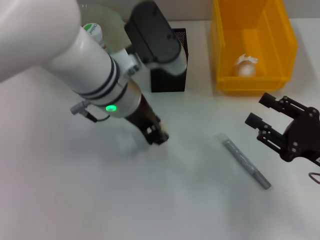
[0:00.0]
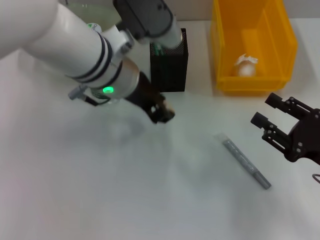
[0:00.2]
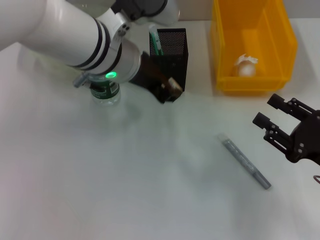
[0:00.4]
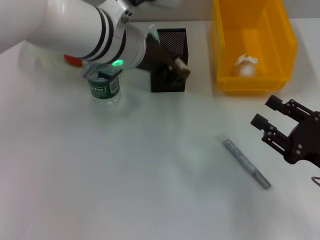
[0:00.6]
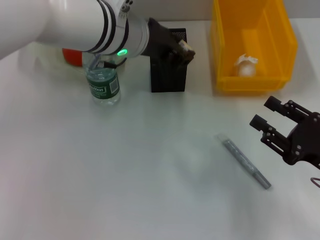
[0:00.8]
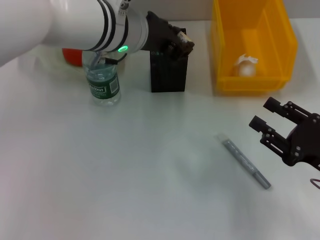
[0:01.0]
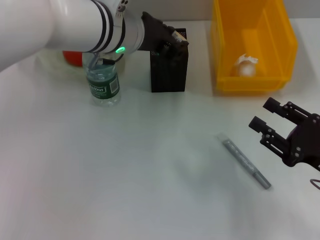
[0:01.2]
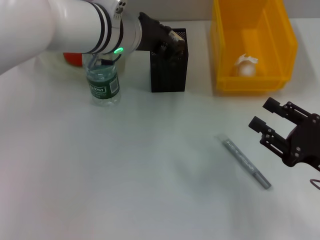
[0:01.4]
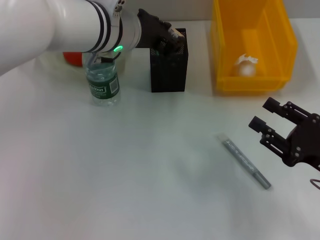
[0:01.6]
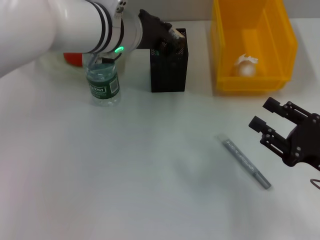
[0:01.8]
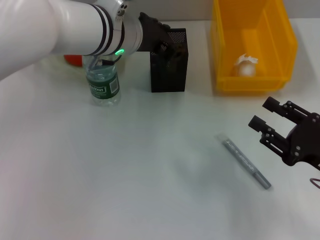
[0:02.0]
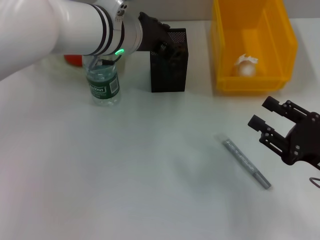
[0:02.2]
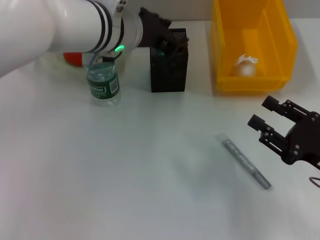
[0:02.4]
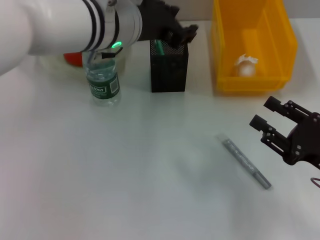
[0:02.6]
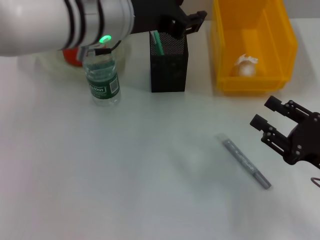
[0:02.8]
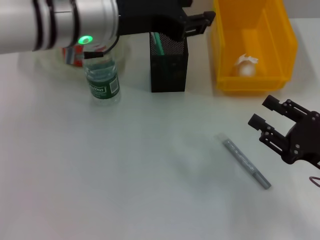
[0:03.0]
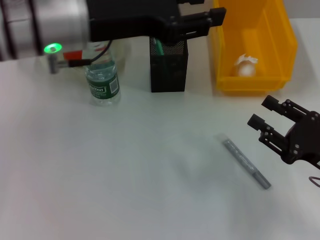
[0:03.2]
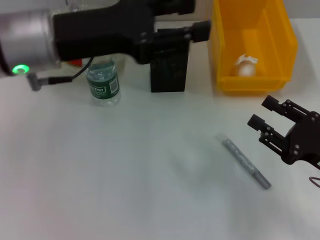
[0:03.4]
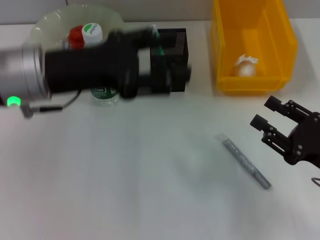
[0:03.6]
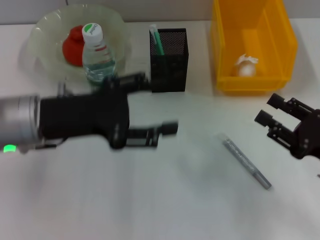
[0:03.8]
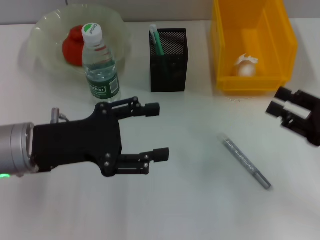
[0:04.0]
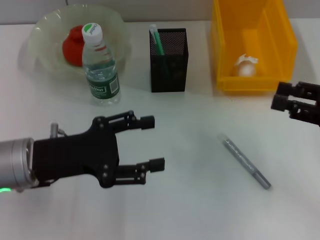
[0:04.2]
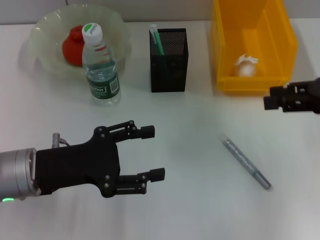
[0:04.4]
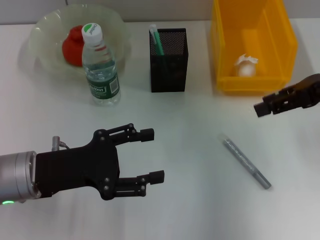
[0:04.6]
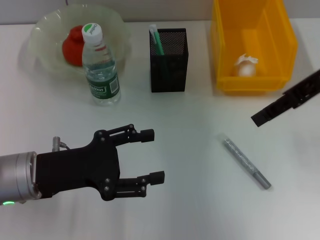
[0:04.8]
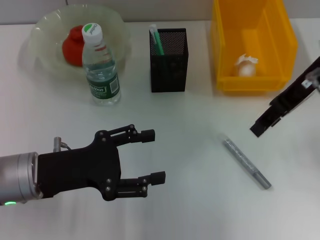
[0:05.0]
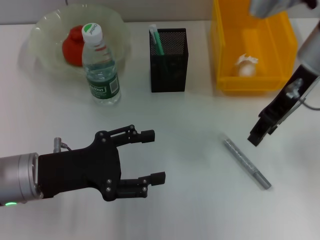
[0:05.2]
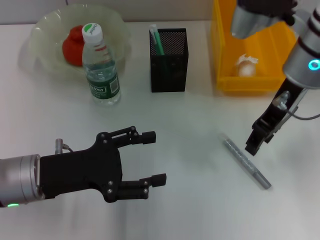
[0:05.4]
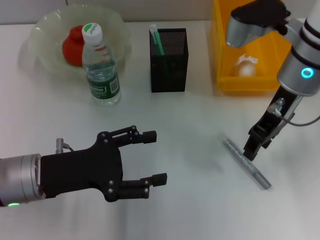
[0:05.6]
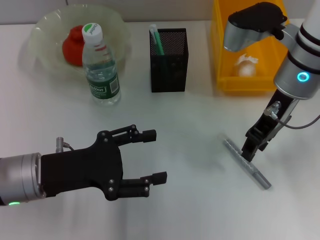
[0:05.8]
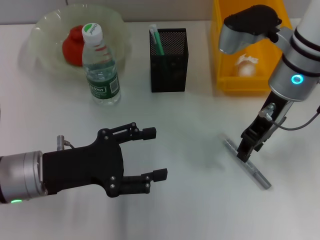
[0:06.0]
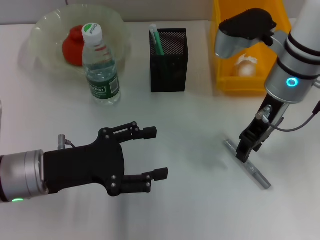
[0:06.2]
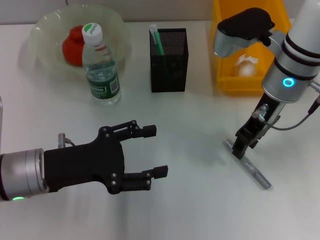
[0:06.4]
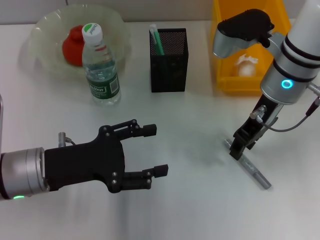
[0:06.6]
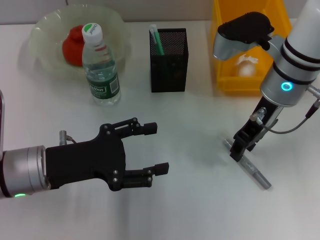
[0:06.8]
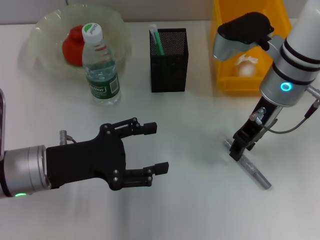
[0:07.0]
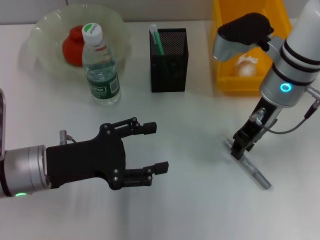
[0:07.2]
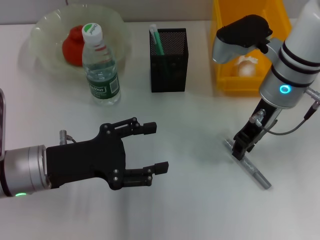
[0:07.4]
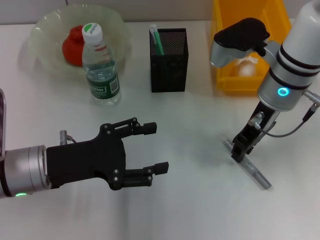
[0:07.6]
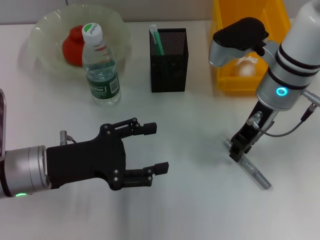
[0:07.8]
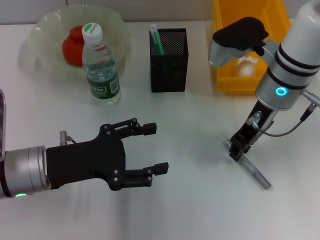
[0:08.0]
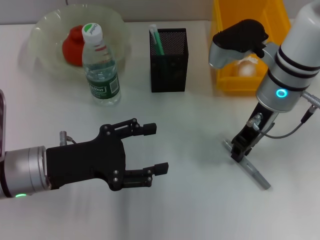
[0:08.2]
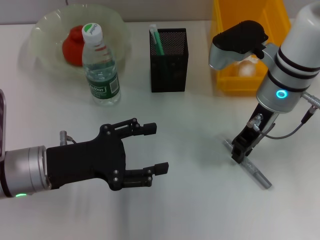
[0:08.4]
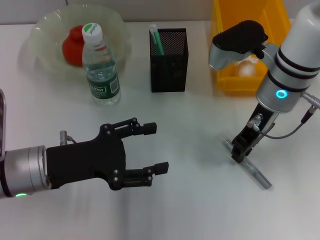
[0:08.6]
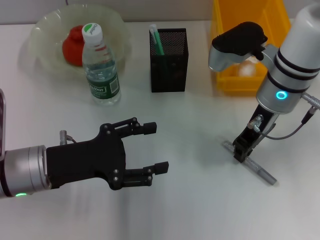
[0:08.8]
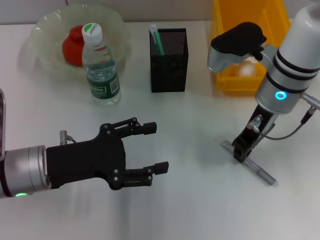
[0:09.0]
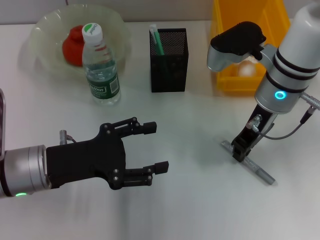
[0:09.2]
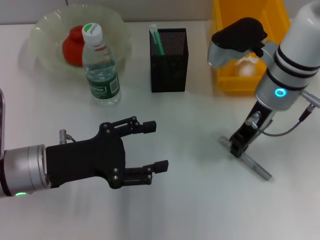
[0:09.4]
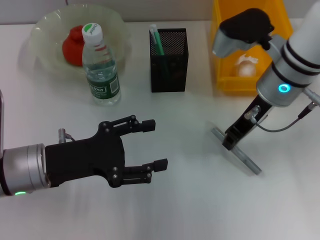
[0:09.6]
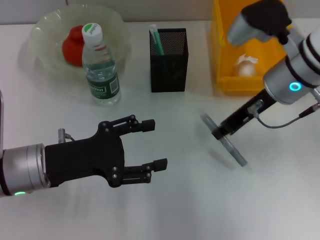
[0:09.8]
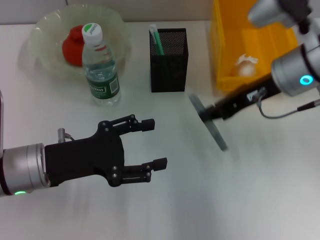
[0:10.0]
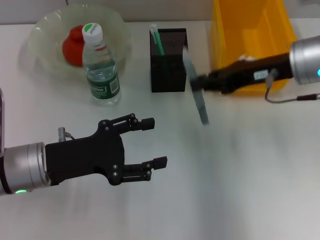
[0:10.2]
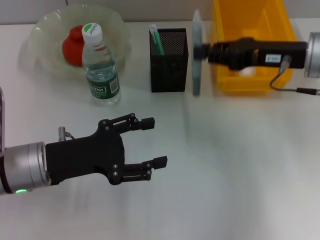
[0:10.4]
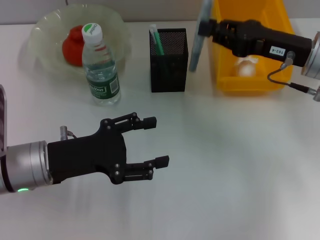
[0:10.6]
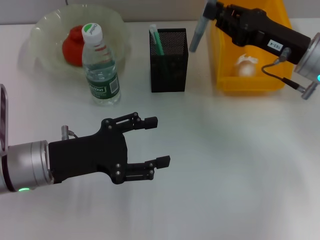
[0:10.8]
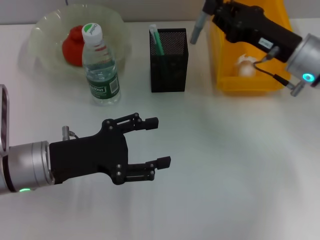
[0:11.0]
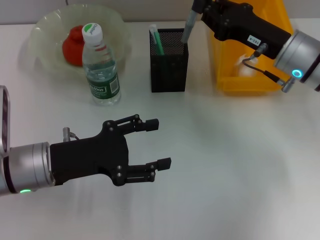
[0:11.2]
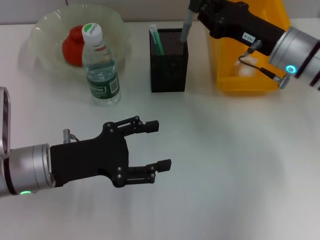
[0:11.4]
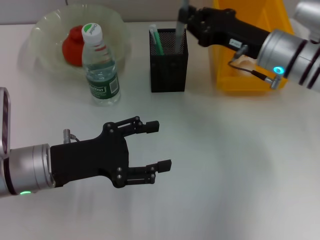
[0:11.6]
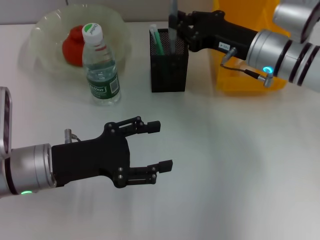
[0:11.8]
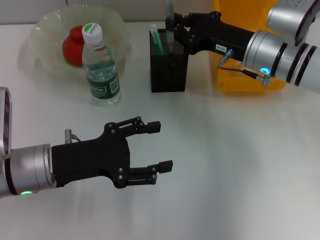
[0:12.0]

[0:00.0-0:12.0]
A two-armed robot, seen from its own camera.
Step, 0:00.2 to 0:02.2: Place the eraser into the pen holder with the left hand.
Step, 0:02.4 to 0:09.2: Grab the gray glue with the right hand.
0:00.0 to 0:01.6: The left gripper goes about 5 cm forward.
0:01.6 to 0:03.0: The left gripper is displaced upward and backward by some 5 cm.
0:03.0 to 0:04.4: The left gripper is displaced downward, to the left and backward by approximately 20 cm; the right gripper heads upward and forward, covering some 15 cm.
0:04.4 to 0:06.0: The right gripper moves to the left and forward, approximately 15 cm.
0:06.0 to 0:07.6: The grippers make only small movements.
0:07.6 to 0:09.0: The two grippers keep their place.
0:09.0 to 0:10.4: The right gripper is displaced to the right by some 10 cm.
0:10.4 to 0:12.0: The right gripper moves to the left and downward, roughly 10 cm.

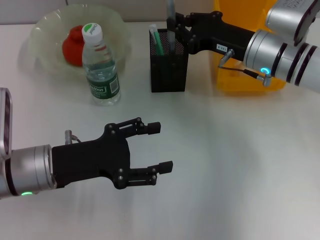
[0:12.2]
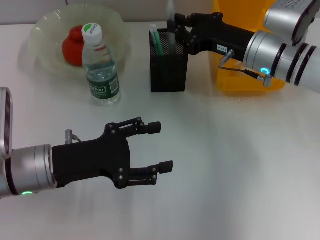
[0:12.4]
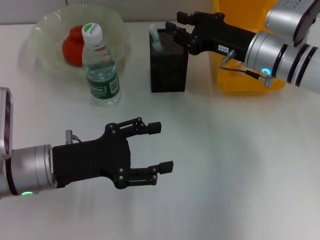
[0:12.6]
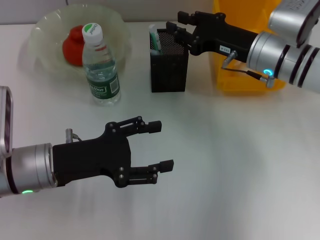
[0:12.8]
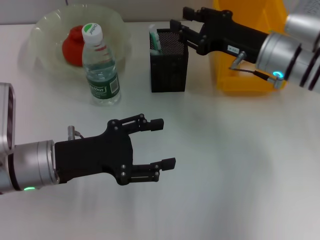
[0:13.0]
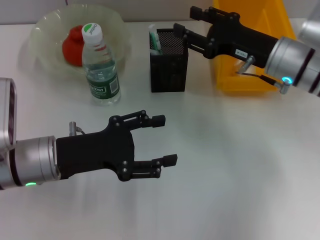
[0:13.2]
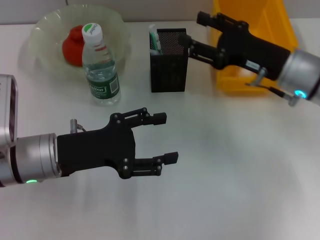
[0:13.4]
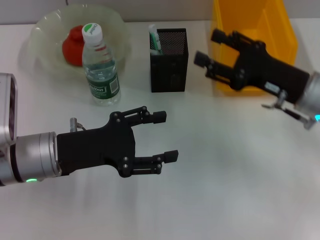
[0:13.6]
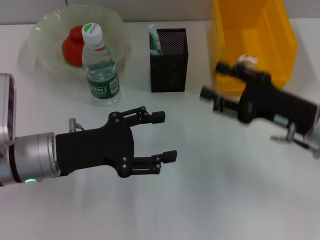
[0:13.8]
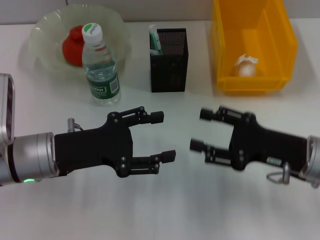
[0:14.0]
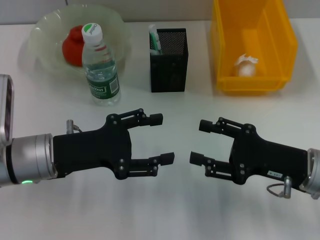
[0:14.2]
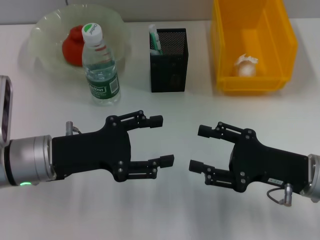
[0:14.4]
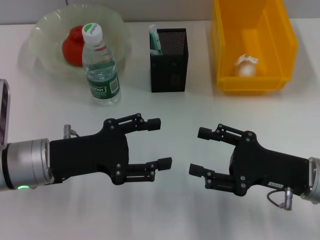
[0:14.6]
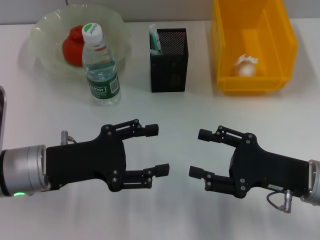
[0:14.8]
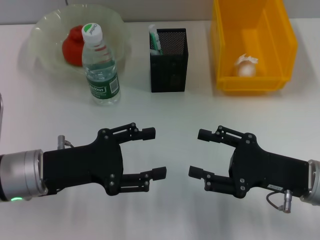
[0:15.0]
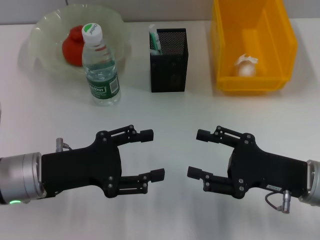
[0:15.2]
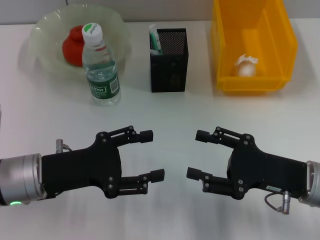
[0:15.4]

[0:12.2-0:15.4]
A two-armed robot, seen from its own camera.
0:12.2 to 0:13.8: The right gripper is displaced backward and to the right by some 15 cm, and opens up.
0:13.8 to 0:15.4: The right gripper moves backward, some 5 cm.

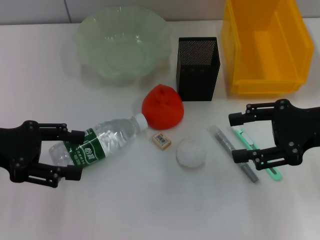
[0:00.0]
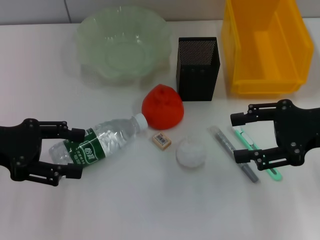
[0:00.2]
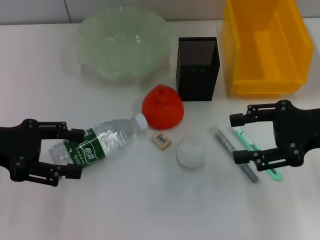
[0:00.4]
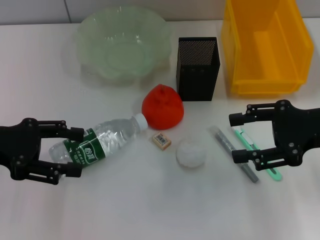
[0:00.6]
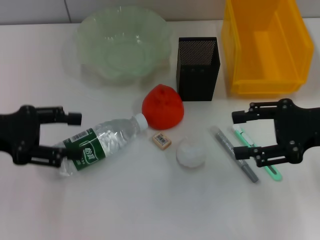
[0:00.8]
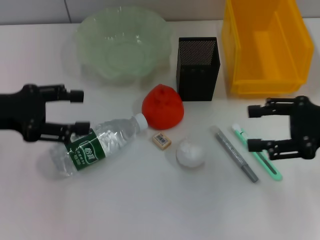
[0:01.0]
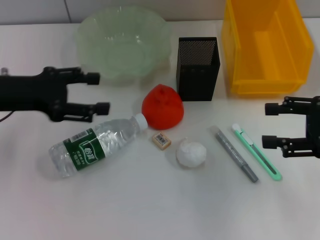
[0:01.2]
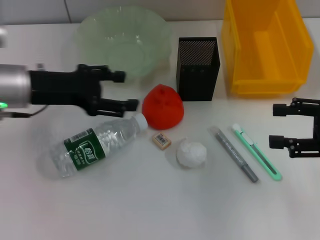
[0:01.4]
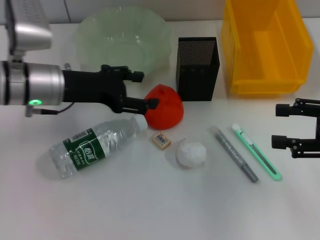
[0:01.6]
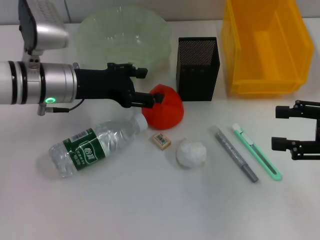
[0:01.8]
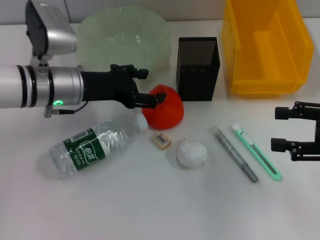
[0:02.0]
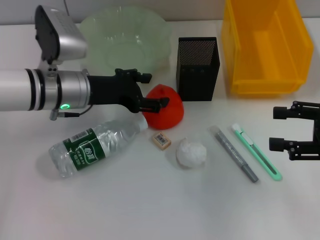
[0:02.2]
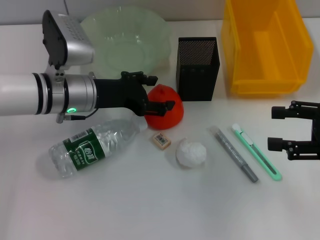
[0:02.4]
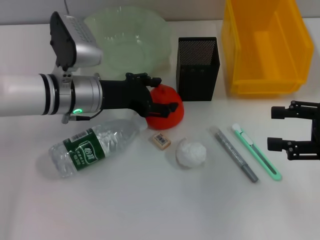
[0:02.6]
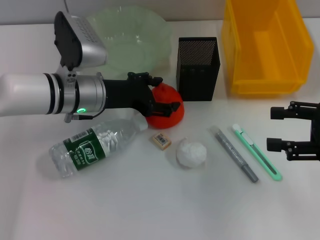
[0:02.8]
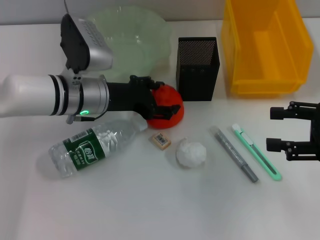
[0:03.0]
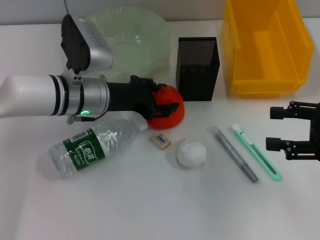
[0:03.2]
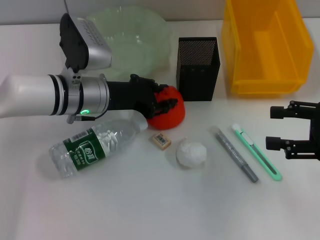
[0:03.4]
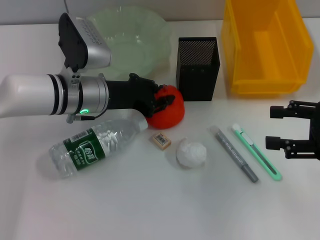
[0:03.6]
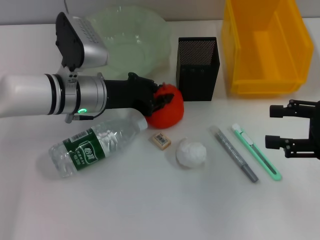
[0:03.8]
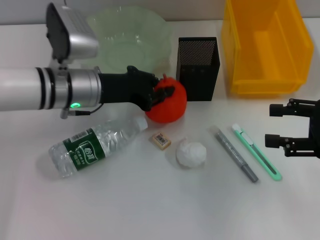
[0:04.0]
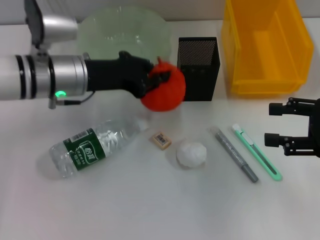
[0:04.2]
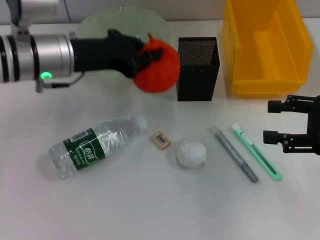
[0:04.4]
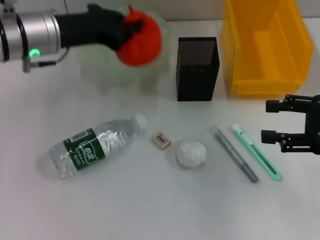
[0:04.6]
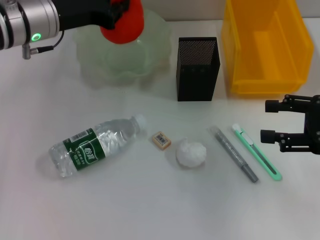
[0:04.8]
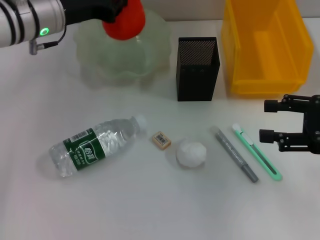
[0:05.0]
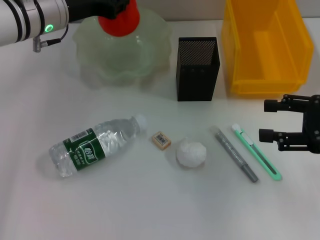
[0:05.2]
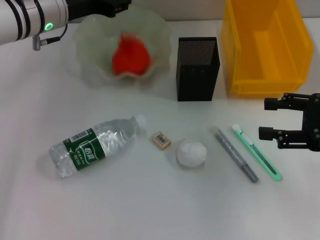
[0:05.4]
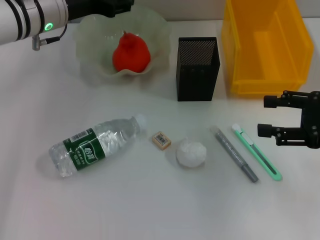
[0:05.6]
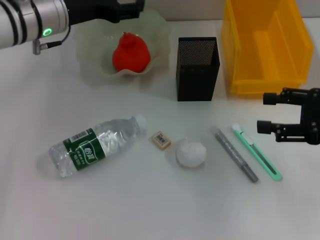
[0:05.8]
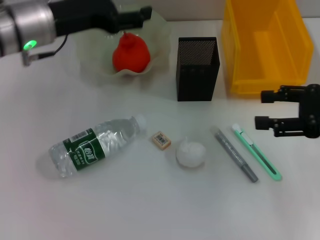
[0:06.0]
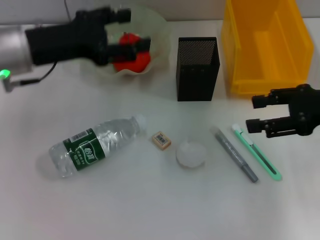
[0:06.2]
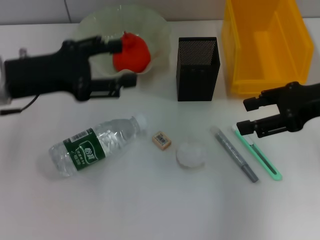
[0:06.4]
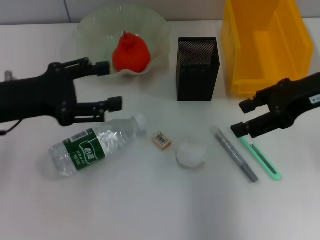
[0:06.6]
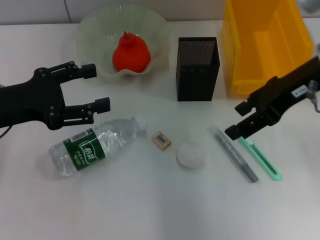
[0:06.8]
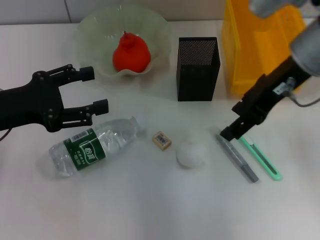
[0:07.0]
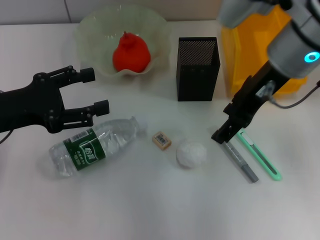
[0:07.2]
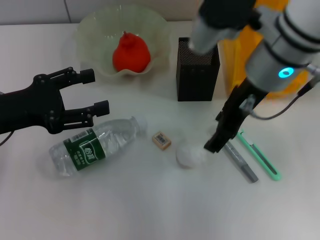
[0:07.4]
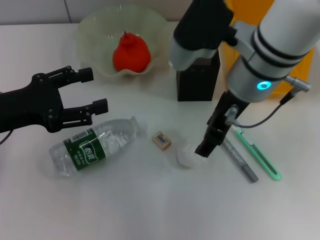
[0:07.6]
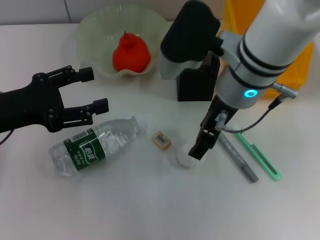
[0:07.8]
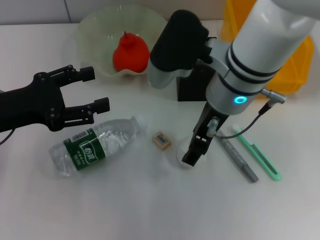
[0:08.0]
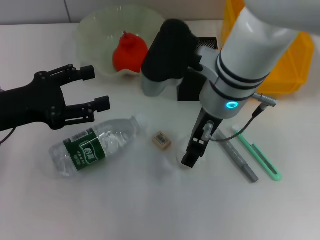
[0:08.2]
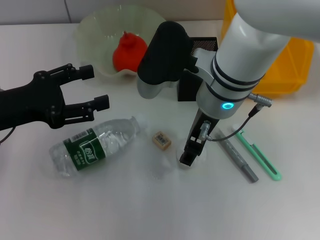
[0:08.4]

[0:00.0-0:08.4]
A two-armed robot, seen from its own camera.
Step, 0:00.0 to 0:03.6: Grab the orange with the left hand.
Step, 0:03.8 to 0:05.4: Place the orange into the fruit bowl with the left hand.
0:00.0 to 0:01.4: The right gripper moves to the right, about 5 cm, while the left gripper shifts approximately 10 cm to the right and forward.
0:01.4 to 0:02.8: The left gripper travels to the right and downward by approximately 10 cm.
0:02.8 to 0:04.2: The left gripper closes its fingers.
0:04.2 to 0:05.6: The left gripper shifts approximately 5 cm forward, and opens its fingers.
0:05.6 to 0:07.0: The right gripper travels to the left, upward and forward by approximately 20 cm; the left gripper travels backward and to the left by roughly 20 cm, and opens its fingers.
0:07.0 to 0:08.4: The right gripper moves to the left and downward, roughly 15 cm.
